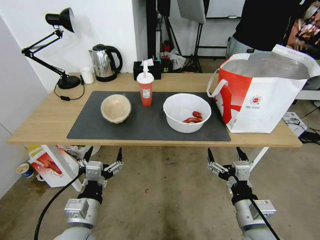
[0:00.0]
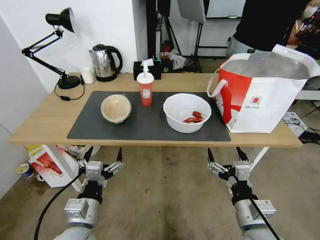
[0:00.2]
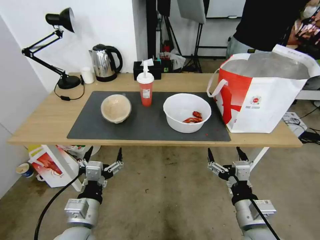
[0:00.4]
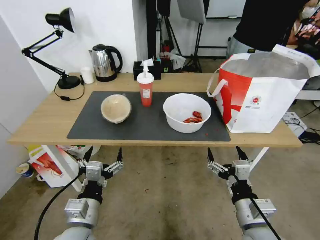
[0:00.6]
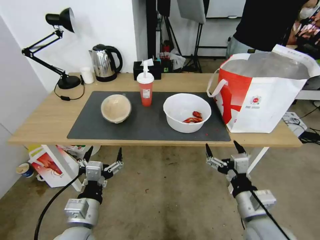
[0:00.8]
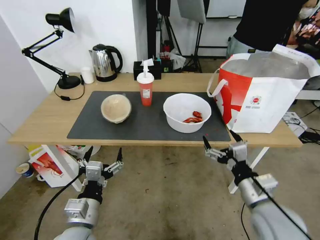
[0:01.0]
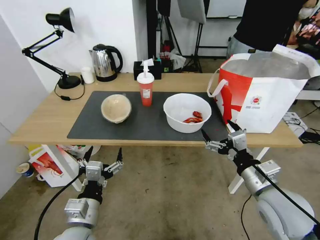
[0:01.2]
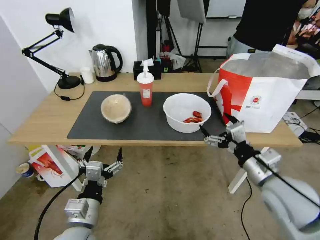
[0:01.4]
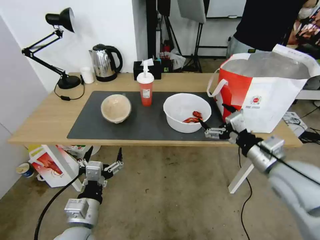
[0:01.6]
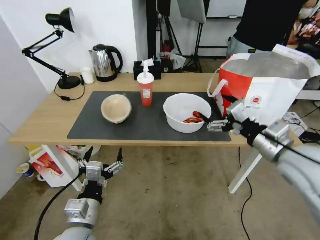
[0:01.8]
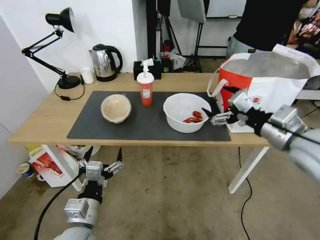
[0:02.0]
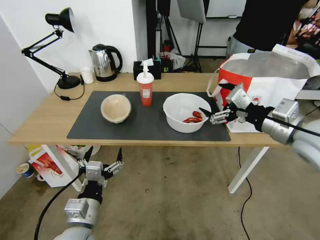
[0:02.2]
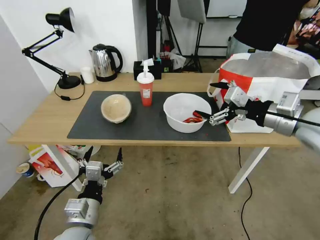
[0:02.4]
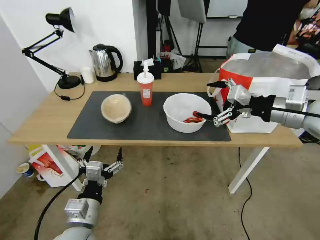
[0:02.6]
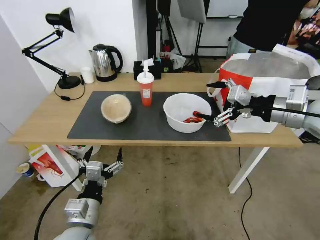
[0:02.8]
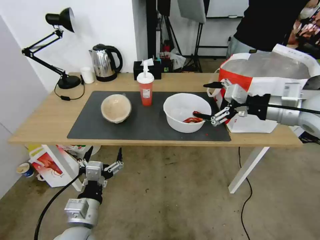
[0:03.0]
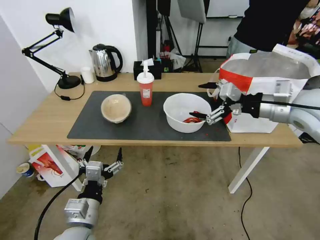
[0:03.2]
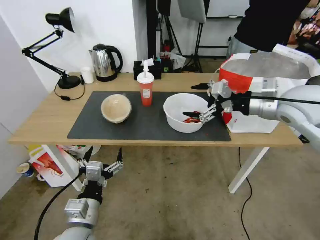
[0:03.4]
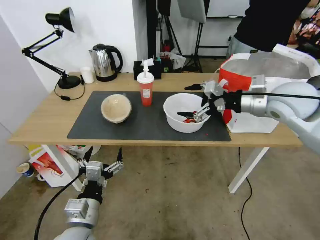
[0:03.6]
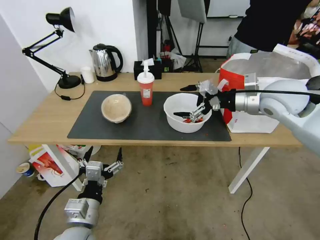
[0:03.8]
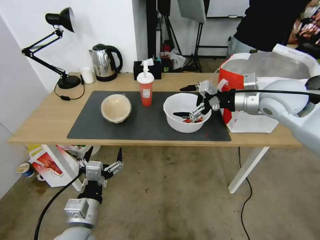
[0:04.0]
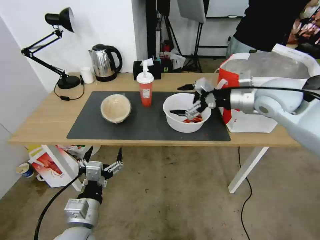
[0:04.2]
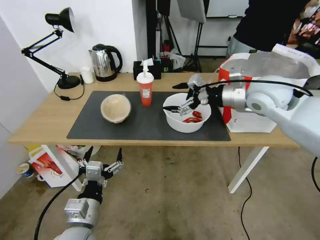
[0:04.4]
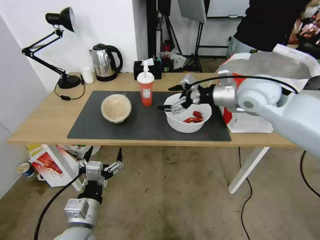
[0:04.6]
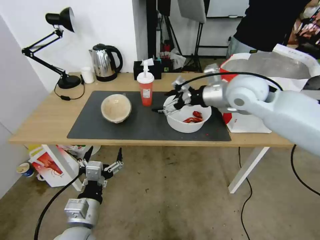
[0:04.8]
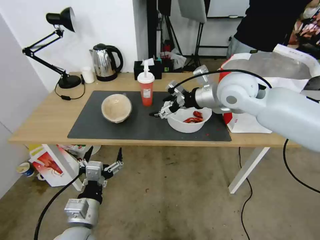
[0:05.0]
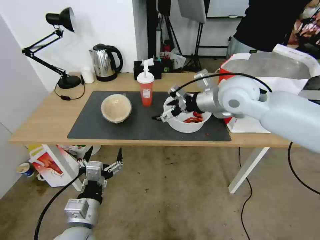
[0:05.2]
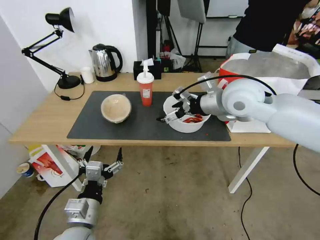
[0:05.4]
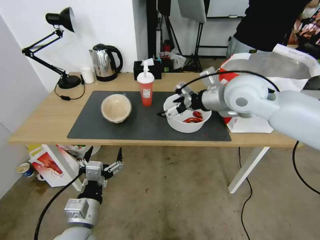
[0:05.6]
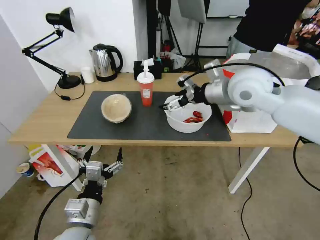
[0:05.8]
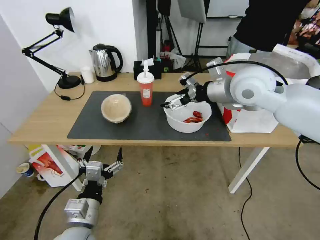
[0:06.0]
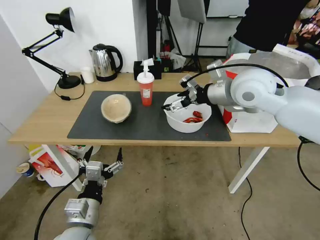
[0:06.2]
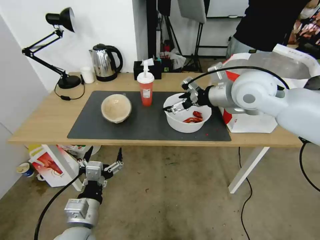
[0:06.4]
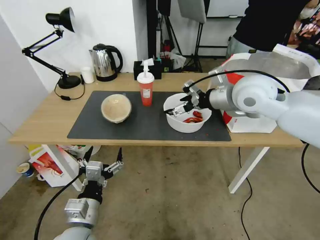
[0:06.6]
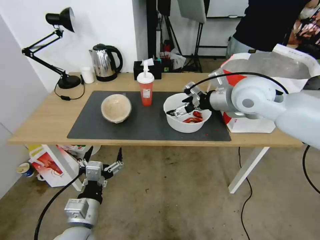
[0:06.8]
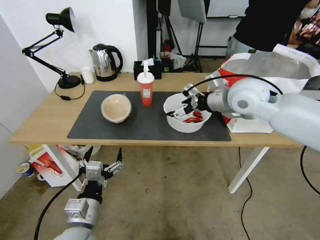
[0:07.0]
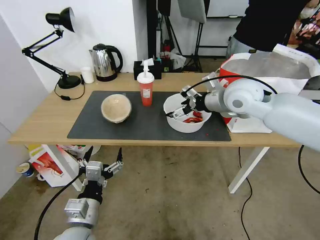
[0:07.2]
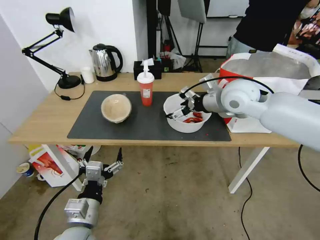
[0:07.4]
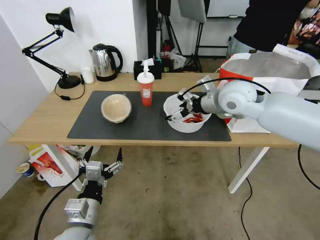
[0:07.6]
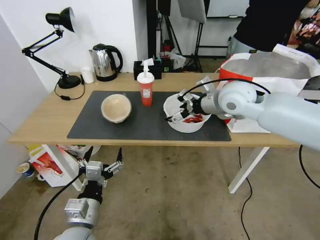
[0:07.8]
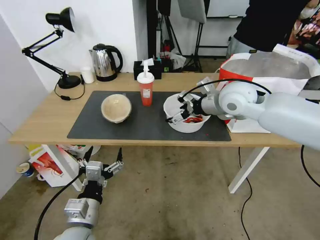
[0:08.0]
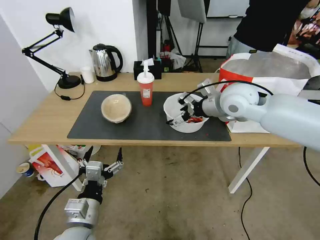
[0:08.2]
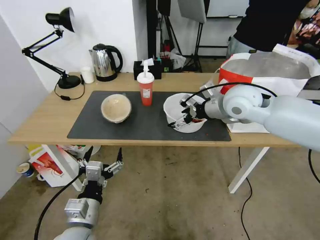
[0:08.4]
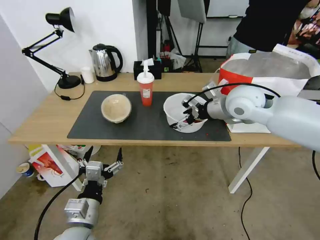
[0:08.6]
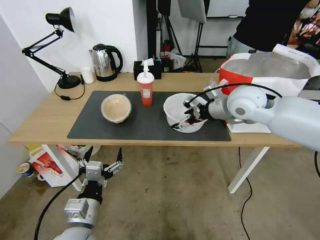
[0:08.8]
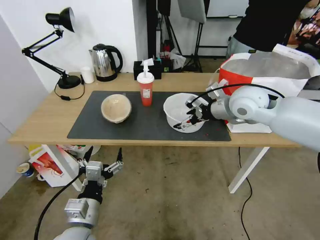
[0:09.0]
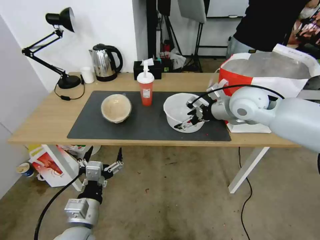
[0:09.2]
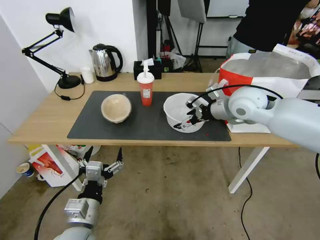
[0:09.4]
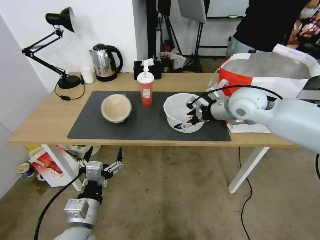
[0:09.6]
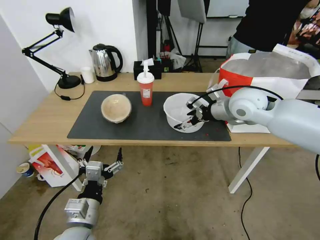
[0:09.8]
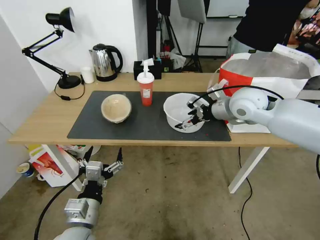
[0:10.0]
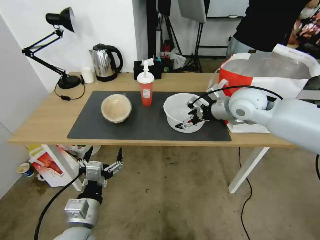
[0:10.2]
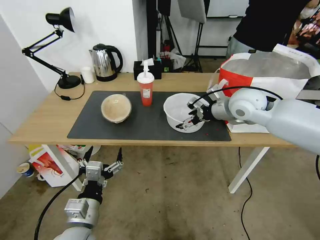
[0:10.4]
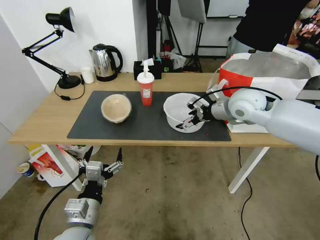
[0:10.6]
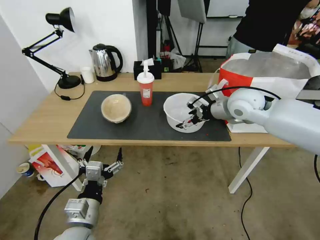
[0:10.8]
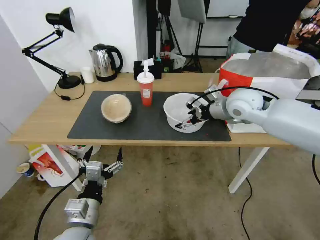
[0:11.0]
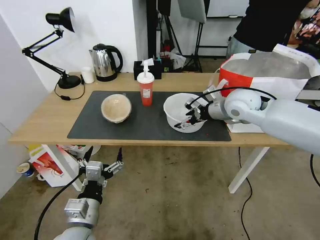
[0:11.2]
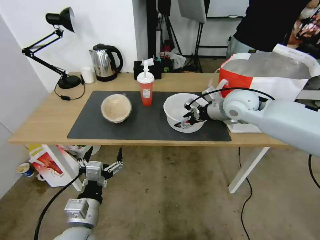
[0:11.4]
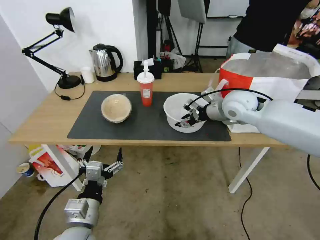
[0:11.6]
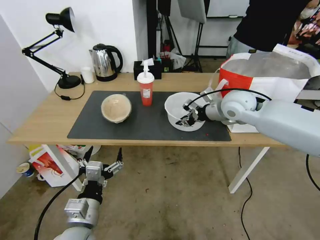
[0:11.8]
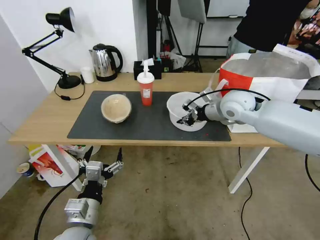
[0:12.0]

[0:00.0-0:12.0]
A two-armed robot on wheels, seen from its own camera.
Task of the whole recording: Pick up the trash from the table and place it into the takeout bag.
0:01.6 to 0:03.0: The right gripper shifts roughly 15 cm upward and forward.
0:03.0 to 0:04.4: The right gripper moves forward and to the left, about 10 cm.
0:04.4 to 0:06.0: The right gripper is displaced to the left by approximately 5 cm.
0:06.0 to 0:07.6: The right gripper travels downward by some 5 cm.
0:07.6 to 0:10.4: There are only small adjustments of the grippers.
0:10.4 to 0:12.0: The right gripper closes.

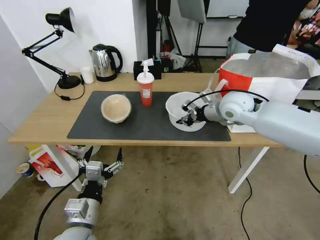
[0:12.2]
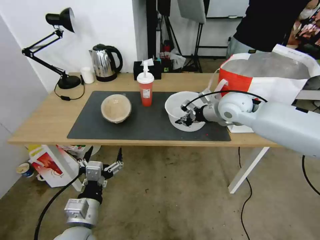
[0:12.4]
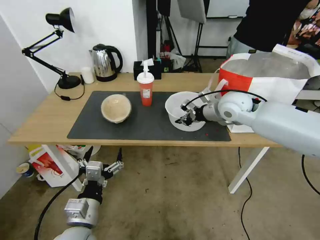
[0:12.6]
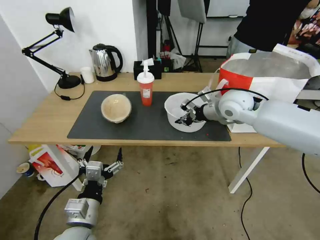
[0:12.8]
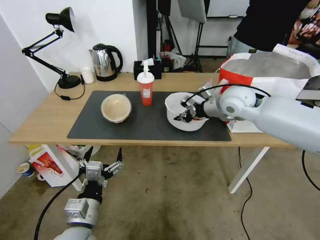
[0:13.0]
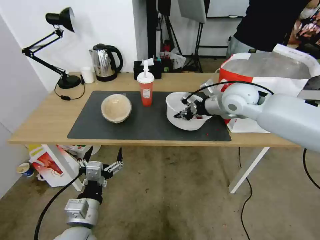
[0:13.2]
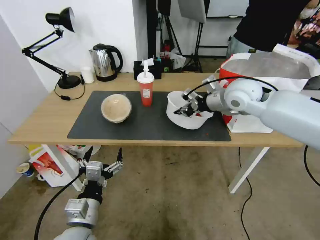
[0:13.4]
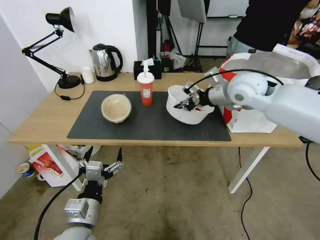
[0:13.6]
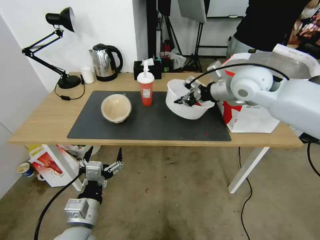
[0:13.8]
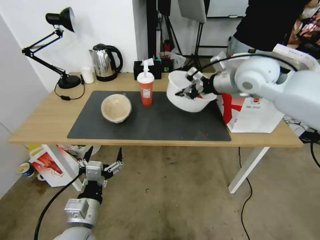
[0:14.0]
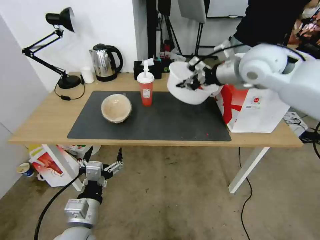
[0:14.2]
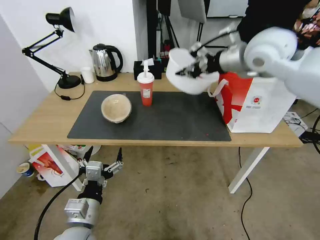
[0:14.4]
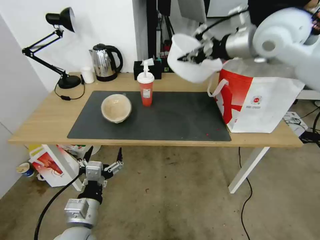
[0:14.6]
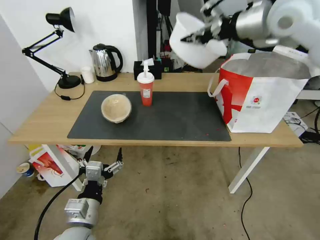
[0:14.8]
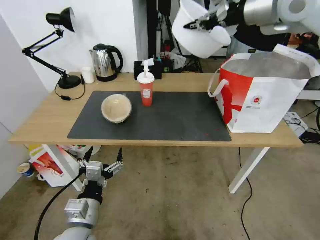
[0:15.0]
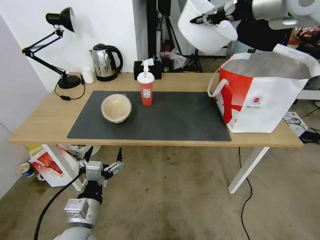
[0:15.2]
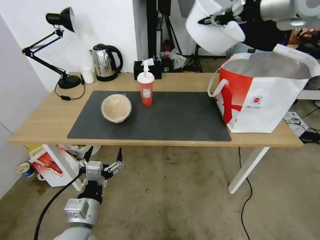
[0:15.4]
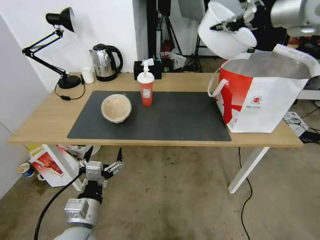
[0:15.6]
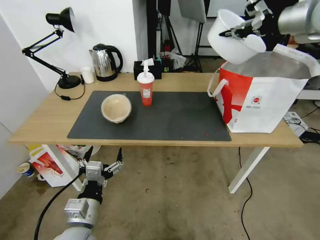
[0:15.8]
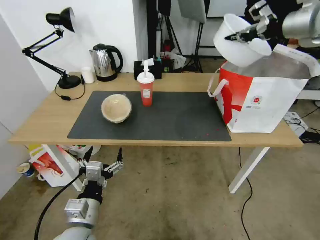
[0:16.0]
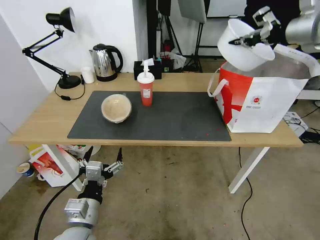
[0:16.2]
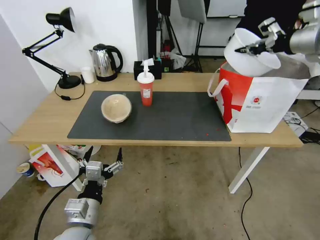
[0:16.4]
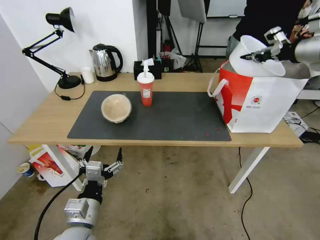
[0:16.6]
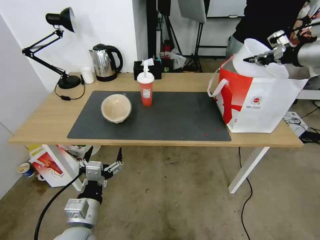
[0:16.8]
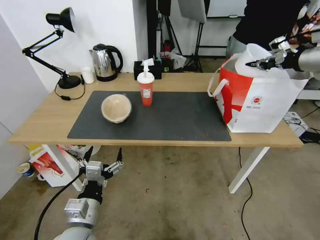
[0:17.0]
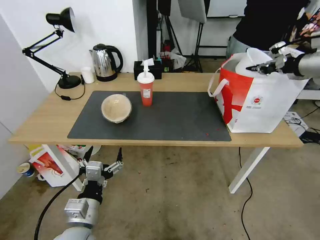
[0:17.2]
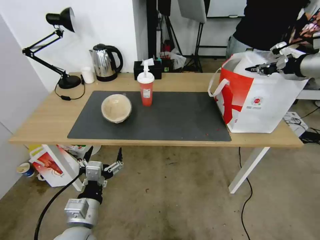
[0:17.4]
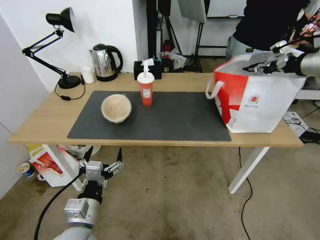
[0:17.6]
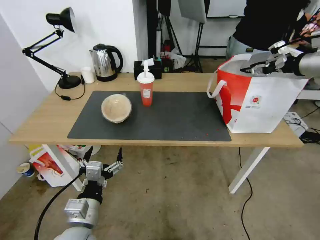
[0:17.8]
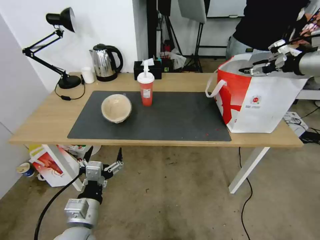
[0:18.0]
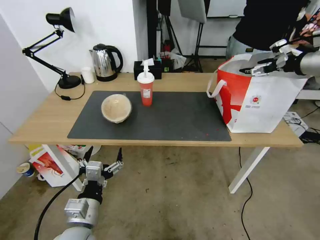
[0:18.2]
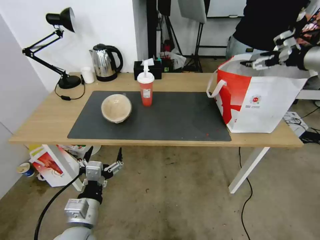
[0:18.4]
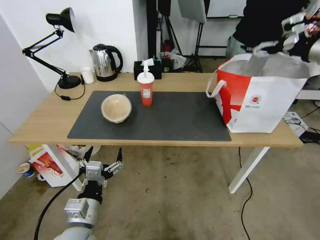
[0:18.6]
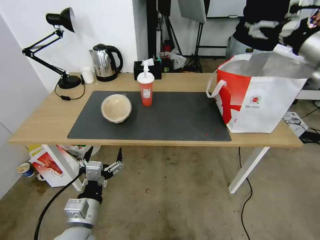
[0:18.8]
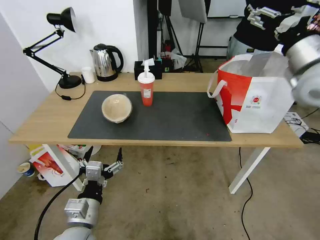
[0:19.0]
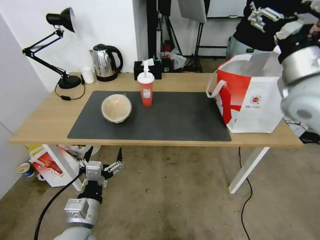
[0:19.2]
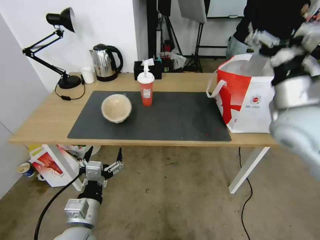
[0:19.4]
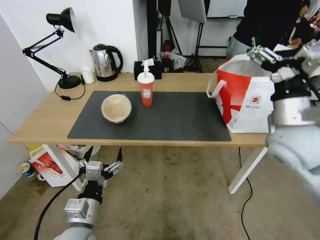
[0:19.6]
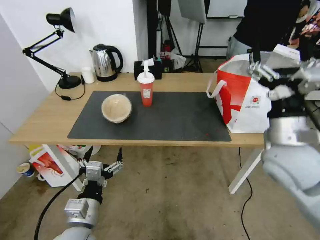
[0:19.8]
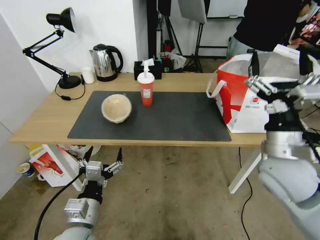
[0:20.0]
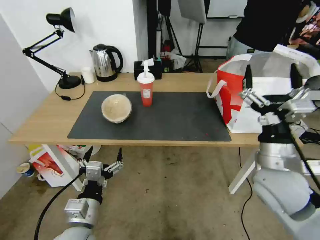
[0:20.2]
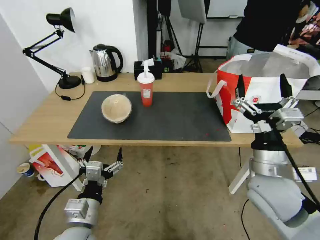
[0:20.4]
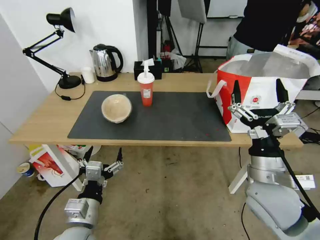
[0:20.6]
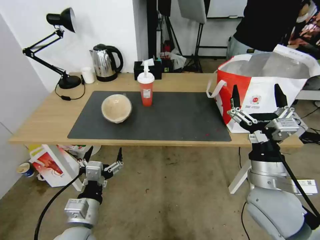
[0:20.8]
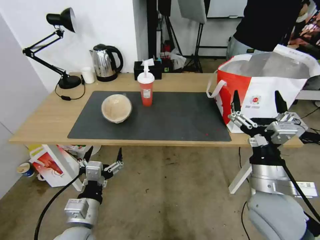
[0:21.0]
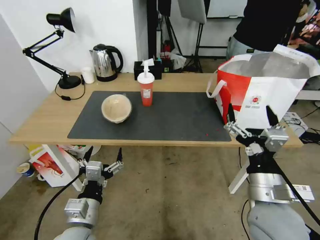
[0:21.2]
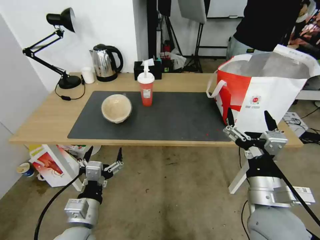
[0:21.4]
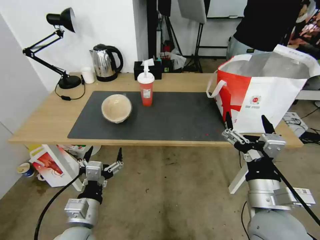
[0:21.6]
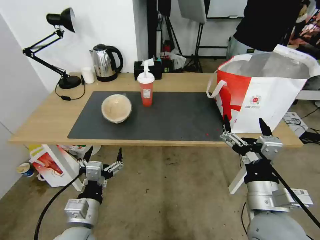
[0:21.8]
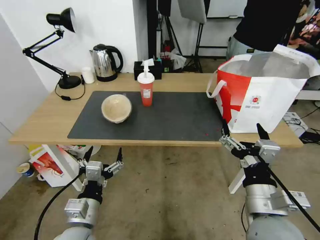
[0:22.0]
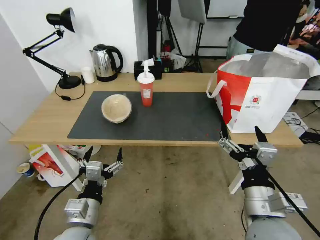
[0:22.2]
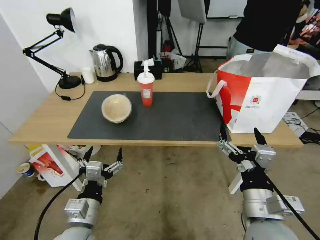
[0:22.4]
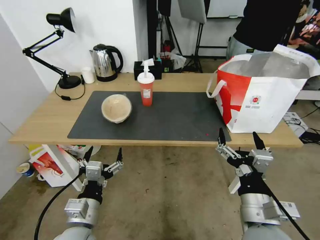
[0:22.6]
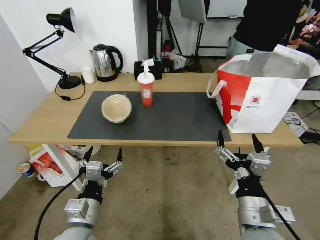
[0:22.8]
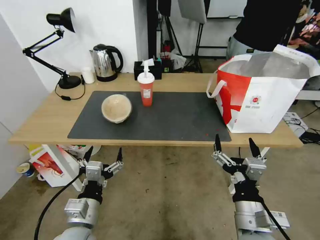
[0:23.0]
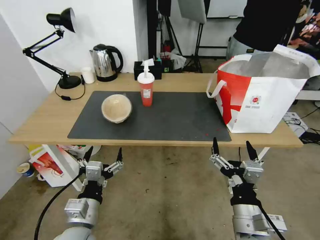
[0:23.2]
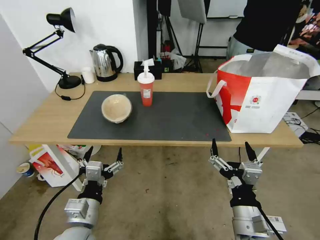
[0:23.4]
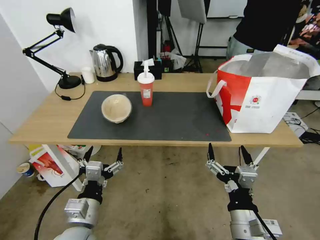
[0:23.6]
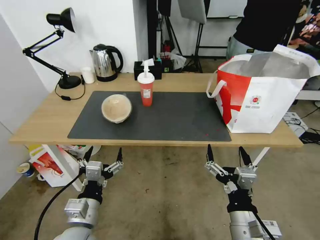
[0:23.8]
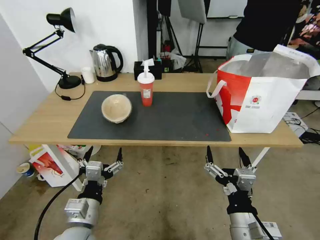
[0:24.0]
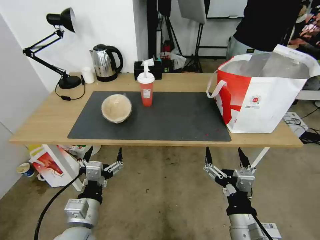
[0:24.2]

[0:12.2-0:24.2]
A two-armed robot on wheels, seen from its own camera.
Task of the whole recording: Pick up the trash from the table and place it into the takeout bag.
0:12.2 to 0:13.8: The right gripper goes roughly 10 cm upward.
0:13.8 to 0:15.2: The right gripper shifts about 20 cm upward.
0:15.2 to 0:16.6: The right gripper moves to the right and downward, some 20 cm.
0:16.6 to 0:18.2: The right gripper opens up.
0:18.2 to 0:19.8: The right gripper goes some 30 cm to the left, backward and downward.
0:19.8 to 0:21.2: The right gripper is displaced backward and downward by roughly 10 cm.
0:21.2 to 0:22.6: The right gripper shifts by some 5 cm.
0:22.6 to 0:24.2: The right gripper shifts by roughly 5 cm.
